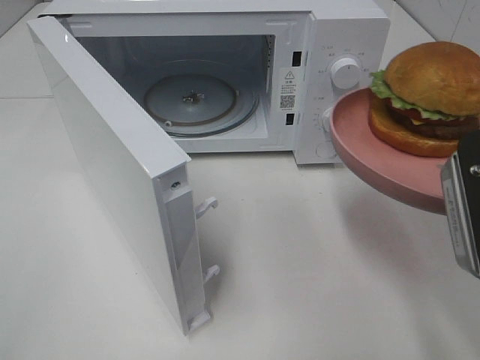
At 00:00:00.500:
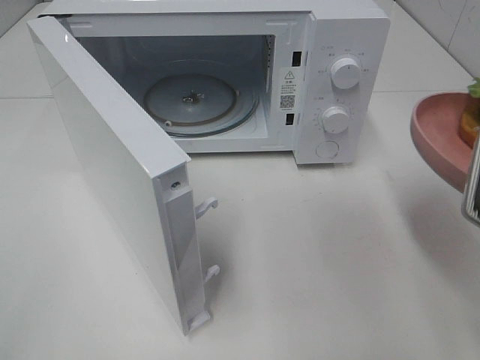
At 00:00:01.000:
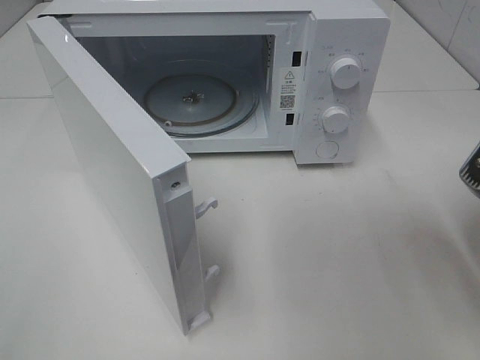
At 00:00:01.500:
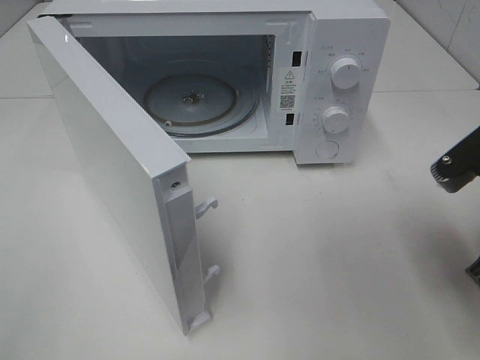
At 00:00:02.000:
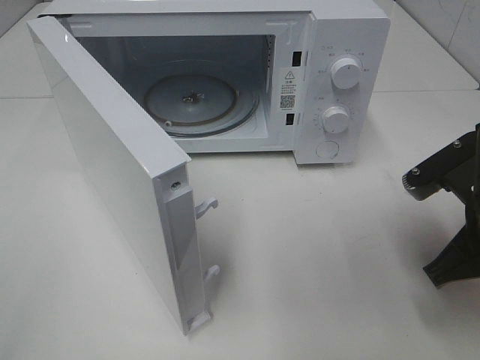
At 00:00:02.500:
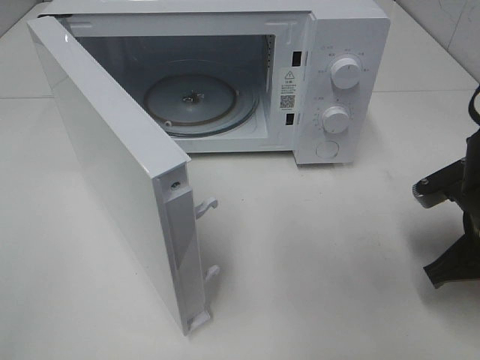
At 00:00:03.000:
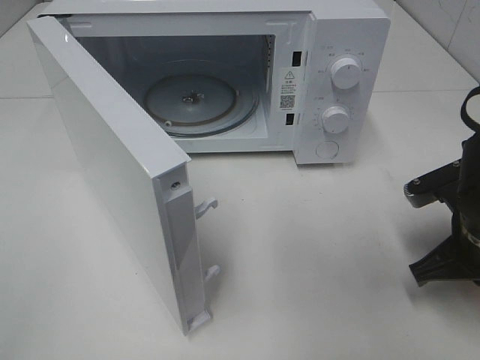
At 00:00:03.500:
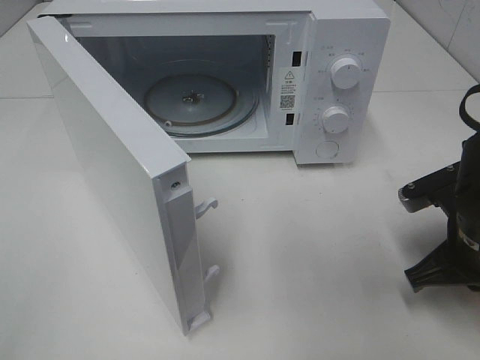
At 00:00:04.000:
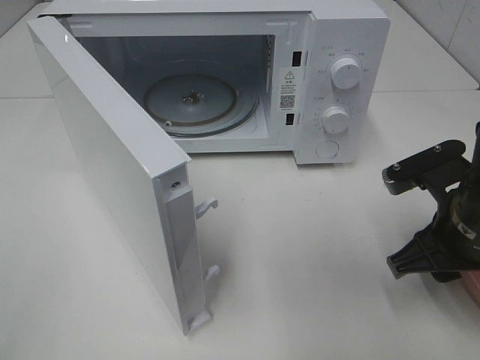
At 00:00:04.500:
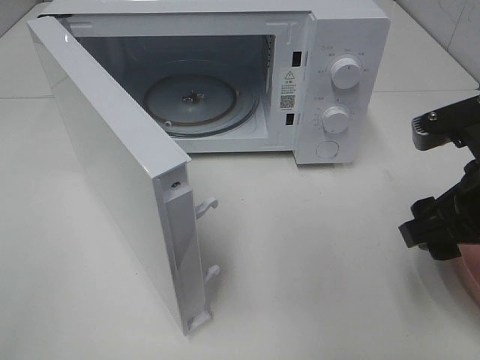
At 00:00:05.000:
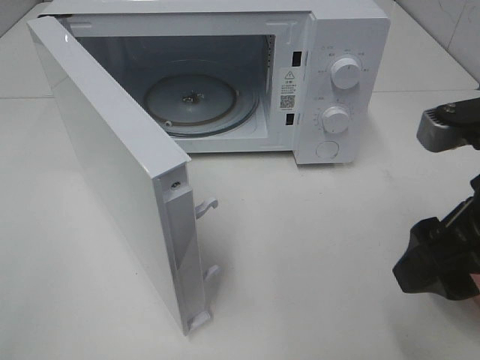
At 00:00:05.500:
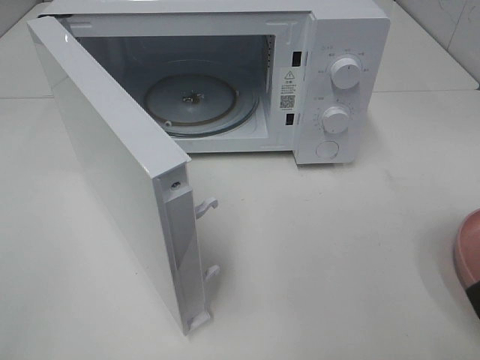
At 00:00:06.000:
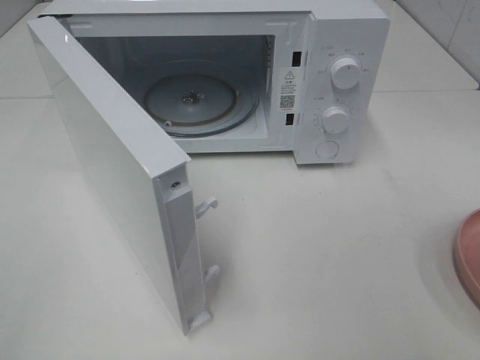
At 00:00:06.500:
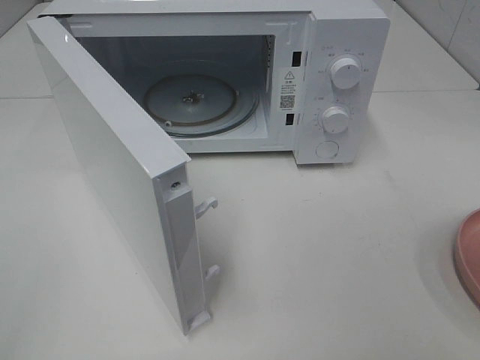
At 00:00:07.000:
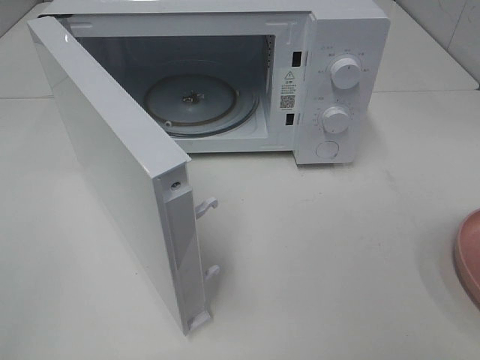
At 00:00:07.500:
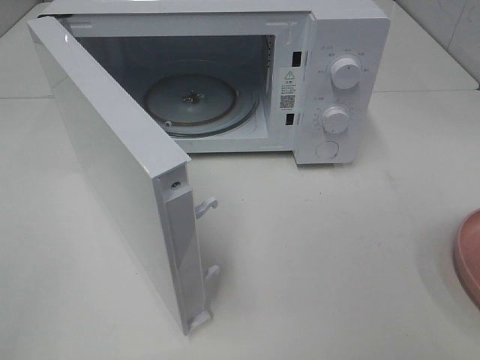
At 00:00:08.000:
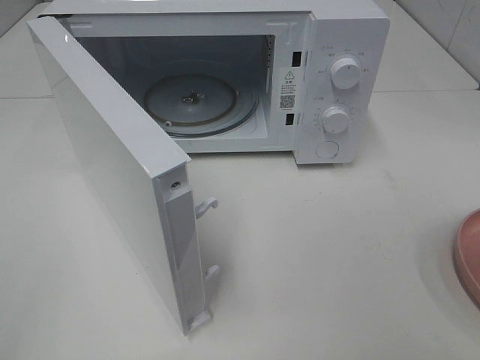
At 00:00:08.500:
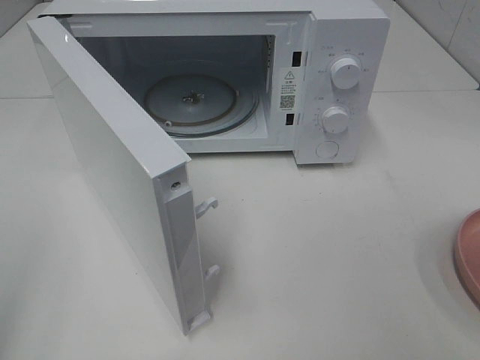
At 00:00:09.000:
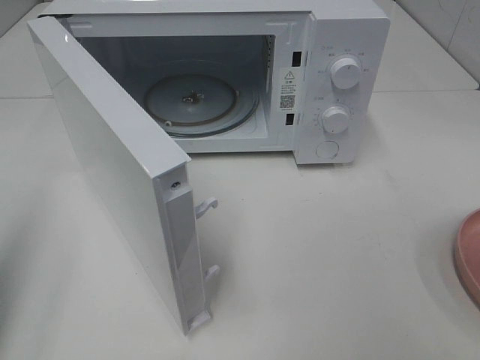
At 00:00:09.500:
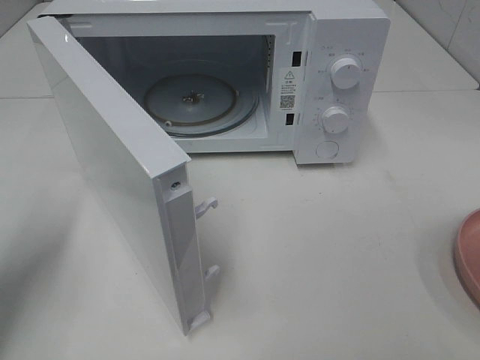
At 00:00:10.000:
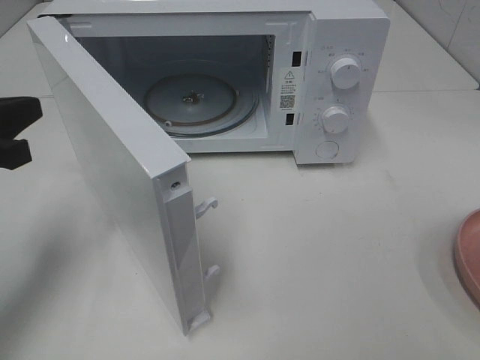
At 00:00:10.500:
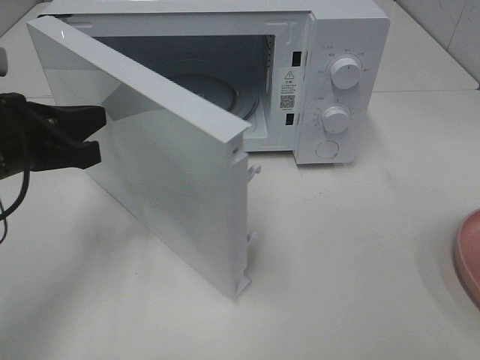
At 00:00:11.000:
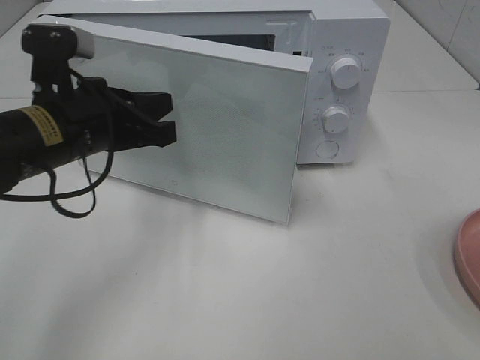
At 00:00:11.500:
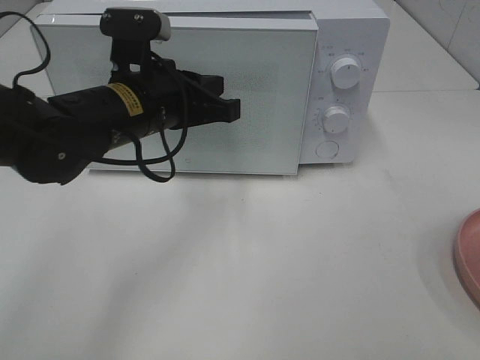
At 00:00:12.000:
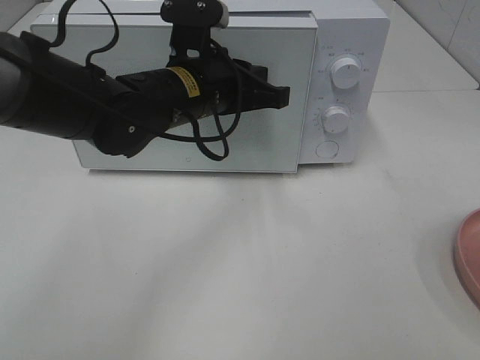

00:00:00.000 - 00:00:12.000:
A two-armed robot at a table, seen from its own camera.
Task of the whole recording: Heat the burger.
Step, 00:00:00.000 - 00:00:03.500: Right hand: place the plate on the table.
00:00:00.000 - 00:00:02.000: The right gripper heads downward and forward, covering roughly 10 cm.
00:00:02.000 - 00:00:04.000: The right gripper opens its fingers.
00:00:04.000 - 00:00:06.000: The right gripper goes roughly 25 cm backward and upward.
00:00:08.000 - 00:00:10.000: The left gripper shifts about 25 cm forward, and closes up.
00:00:10.000 - 00:00:12.000: The left gripper shifts approximately 25 cm to the right and forward.

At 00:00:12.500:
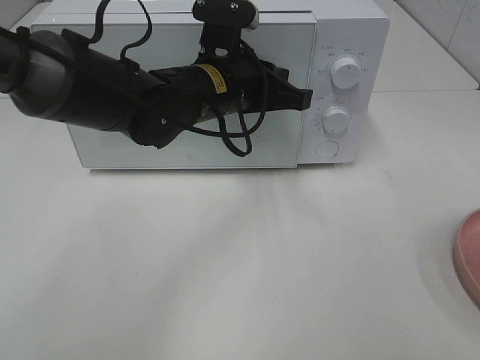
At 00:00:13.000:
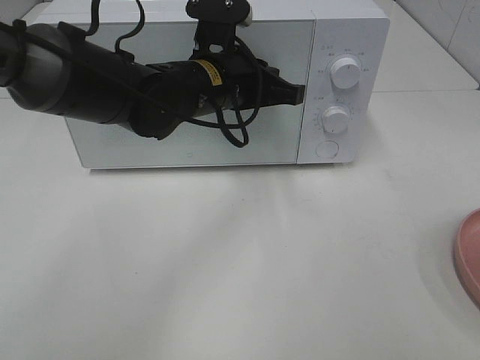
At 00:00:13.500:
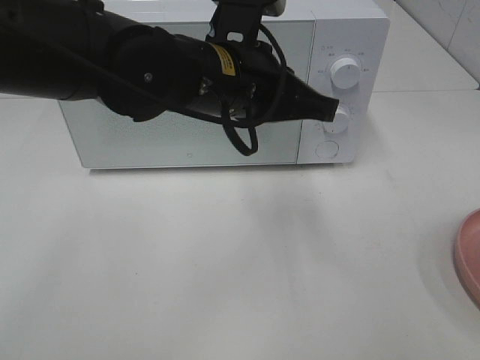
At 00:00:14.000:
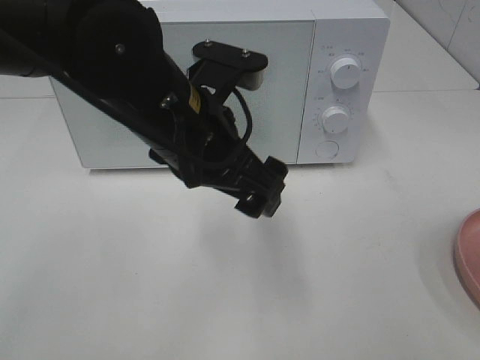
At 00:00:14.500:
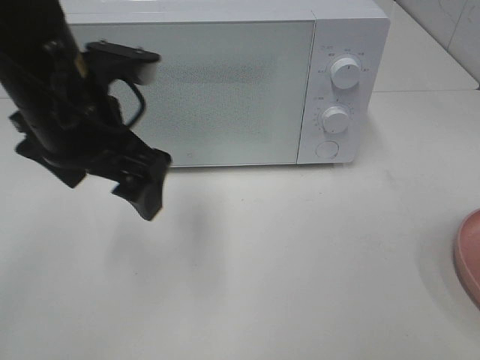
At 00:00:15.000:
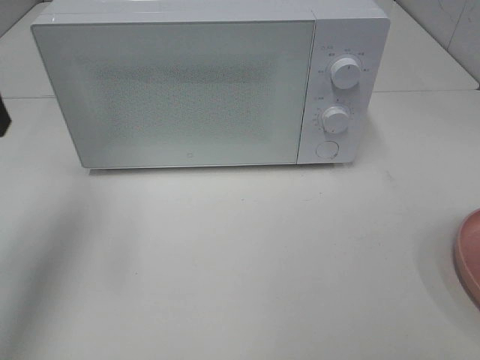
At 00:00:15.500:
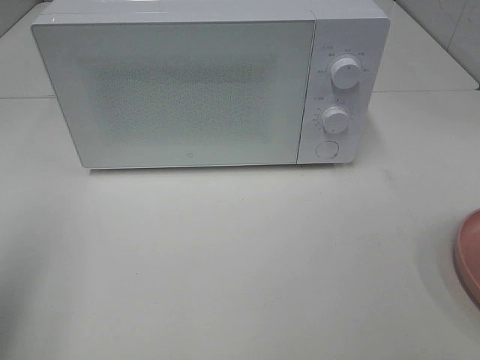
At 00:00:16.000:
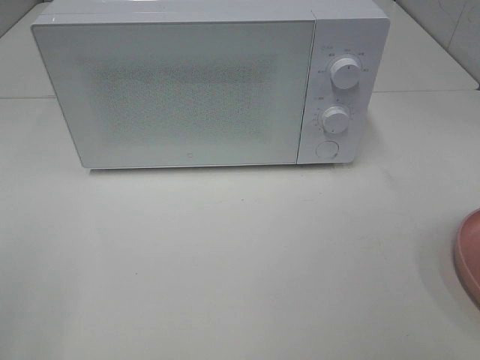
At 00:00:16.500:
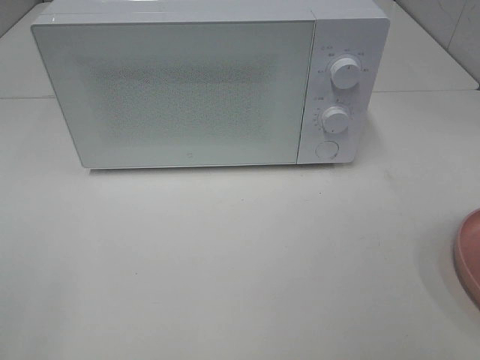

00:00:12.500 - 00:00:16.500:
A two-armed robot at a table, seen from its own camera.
Task of the whole recording: Heat the burger.
00:00:12.500 - 00:00:14.500: The left gripper heads to the left, backward and upward, covering about 15 cm, and opens.
00:00:14.500 - 00:00:16.500: The left gripper moves backward and to the left, roughly 35 cm.
